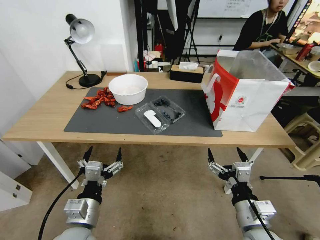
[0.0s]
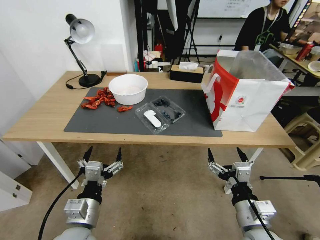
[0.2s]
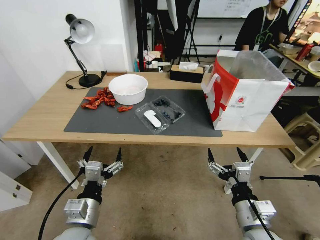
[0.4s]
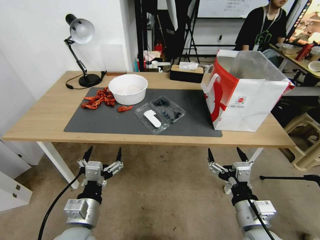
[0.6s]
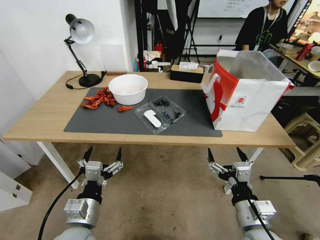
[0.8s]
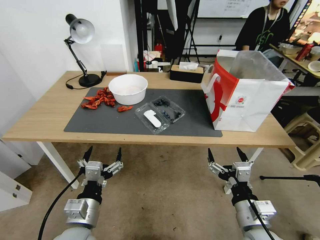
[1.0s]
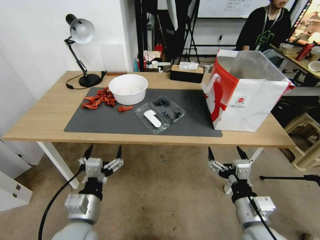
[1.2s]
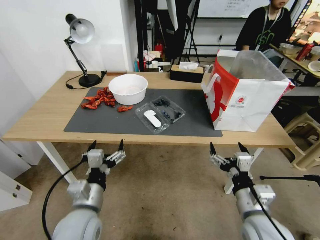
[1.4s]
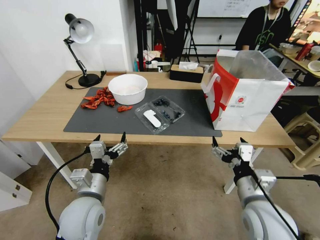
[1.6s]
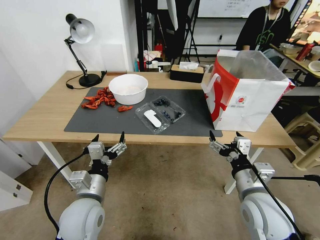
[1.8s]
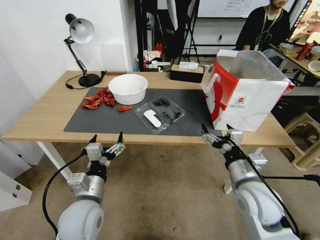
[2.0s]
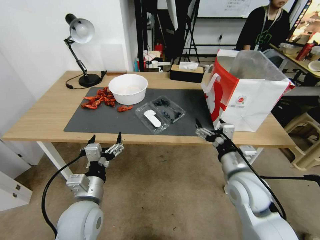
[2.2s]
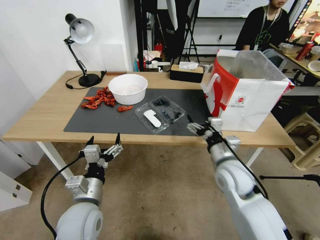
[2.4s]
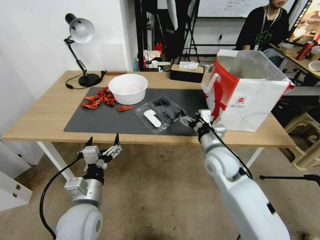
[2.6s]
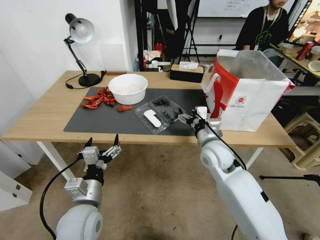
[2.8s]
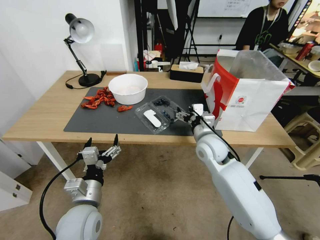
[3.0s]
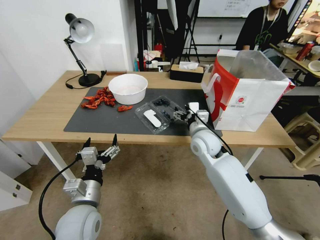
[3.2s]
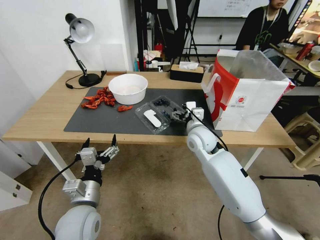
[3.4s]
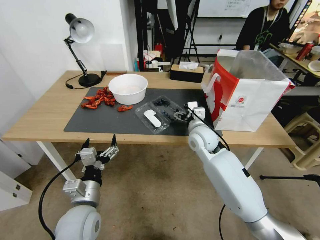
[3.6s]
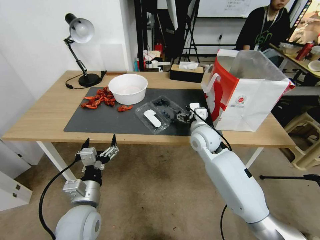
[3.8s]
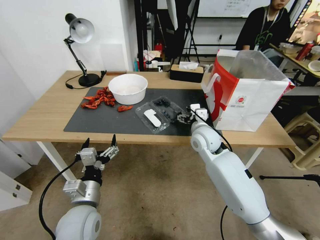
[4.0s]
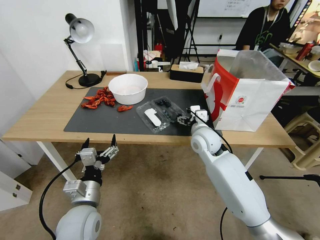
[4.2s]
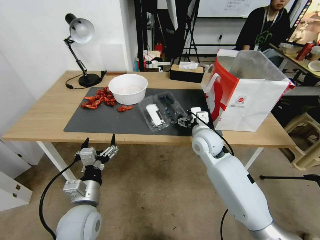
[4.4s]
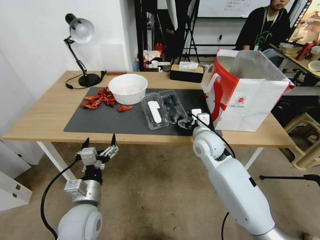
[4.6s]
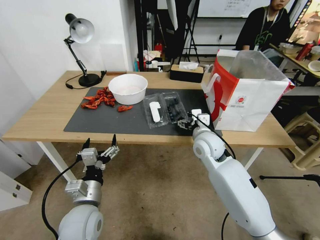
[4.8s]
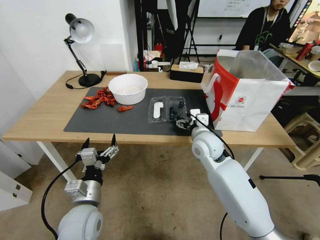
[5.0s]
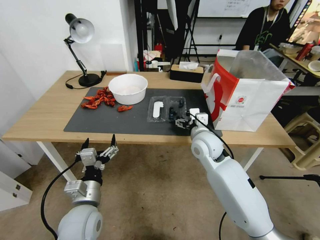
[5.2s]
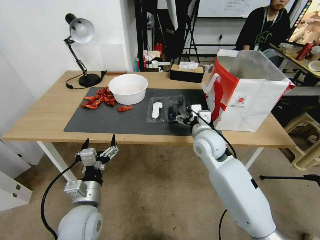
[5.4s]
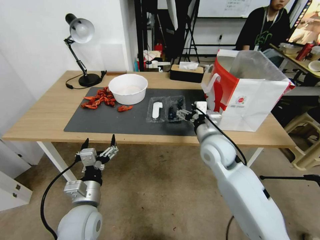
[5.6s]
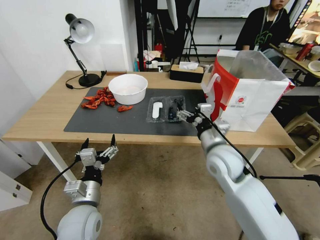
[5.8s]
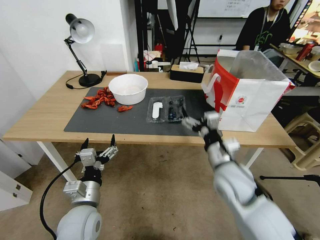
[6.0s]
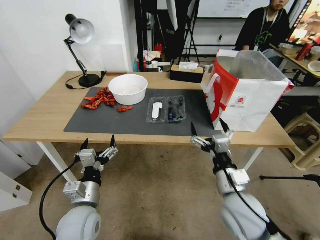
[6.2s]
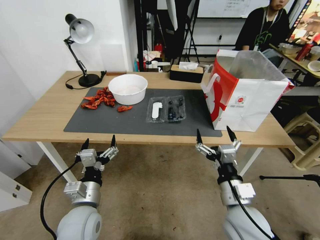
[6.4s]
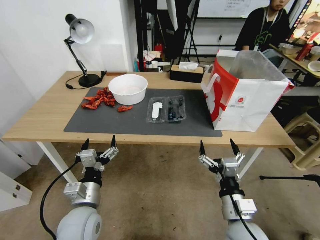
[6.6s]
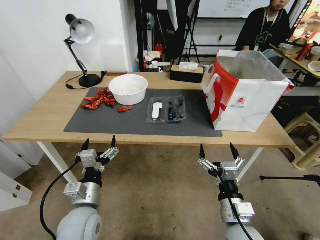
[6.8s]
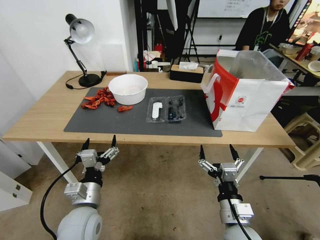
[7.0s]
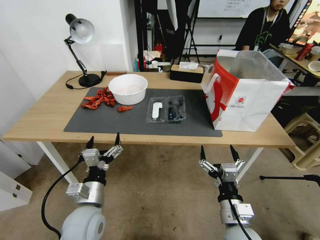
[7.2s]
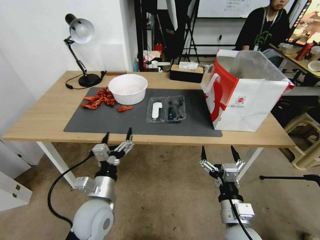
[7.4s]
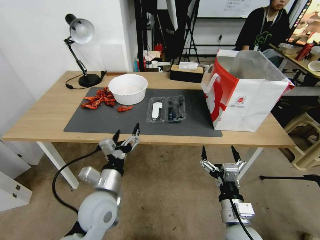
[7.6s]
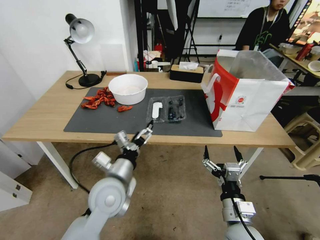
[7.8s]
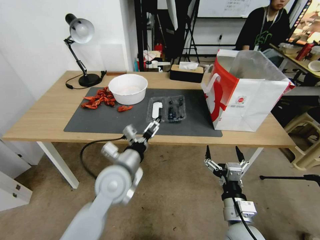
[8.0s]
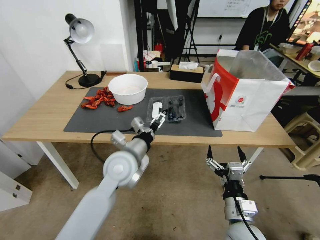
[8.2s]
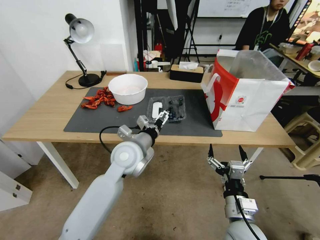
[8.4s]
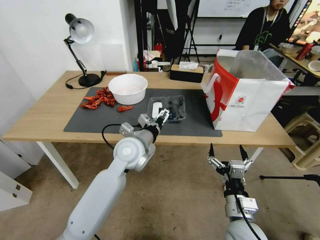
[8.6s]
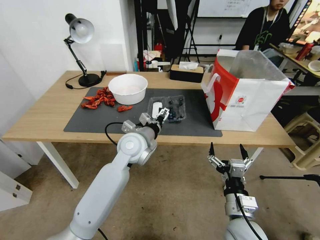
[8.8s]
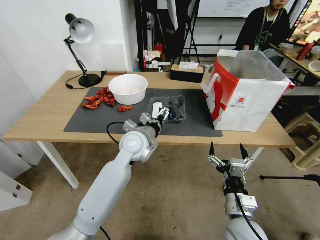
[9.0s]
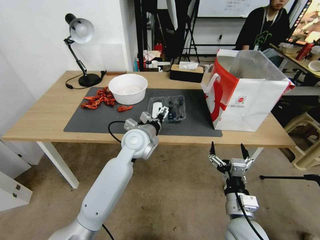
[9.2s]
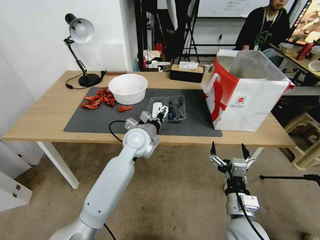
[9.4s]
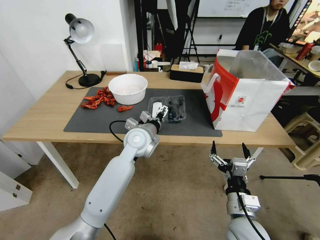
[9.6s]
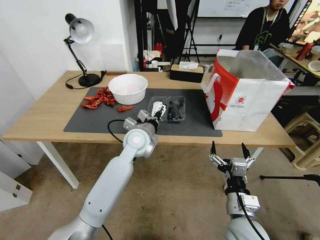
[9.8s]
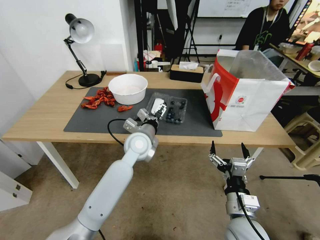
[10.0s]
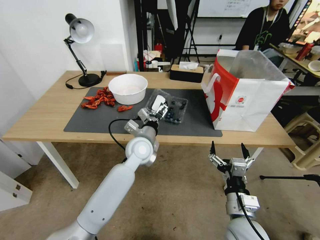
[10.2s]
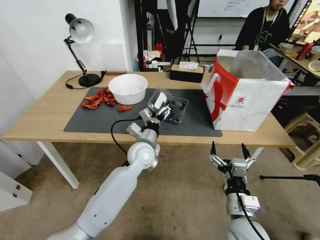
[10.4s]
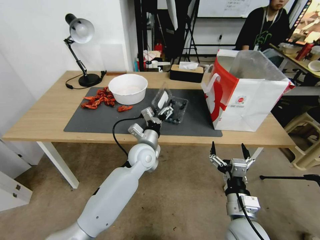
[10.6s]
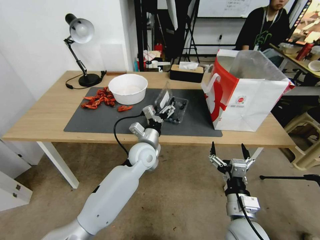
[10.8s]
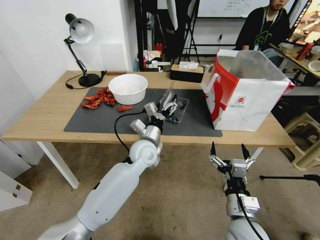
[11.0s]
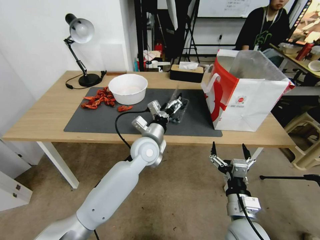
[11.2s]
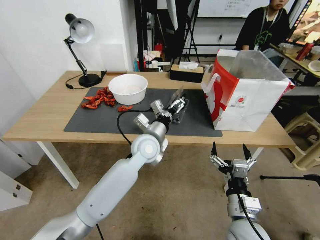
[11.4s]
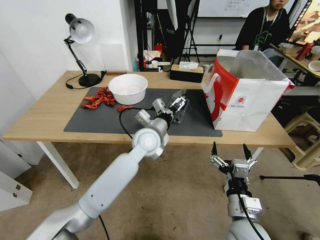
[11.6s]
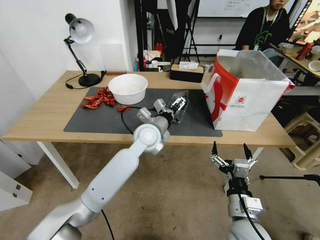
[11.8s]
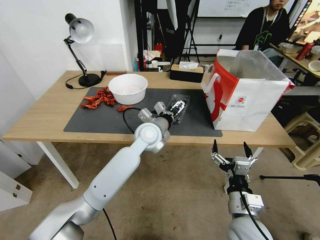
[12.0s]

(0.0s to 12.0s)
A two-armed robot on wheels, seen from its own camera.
Task of the whole recording: Close the takeout container lid, then place the container into the takeout bag.
1.6s - 3.0s: The right gripper is displaced forward by roughly 20 cm.
3.0s - 4.4s: The grippers stay close to where they were, moving slightly.
4.4s - 6.0s: The right gripper shifts roughly 15 cm backward.
6.0s - 7.6s: The right gripper goes approximately 15 cm backward and downward. Meanwhile the left gripper ends up roughly 5 cm from where it was.
7.6s - 9.0s: The left gripper travels forward and to the right by roughly 20 cm.
9.0s - 10.4s: The left gripper heads downward, covering roughly 5 cm.
10.4s - 12.0s: The left gripper shifts about 5 cm upward.

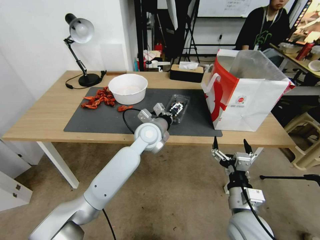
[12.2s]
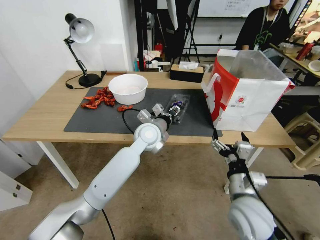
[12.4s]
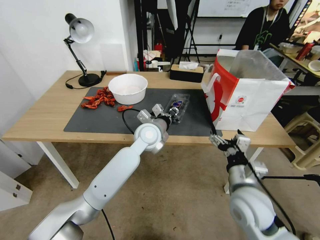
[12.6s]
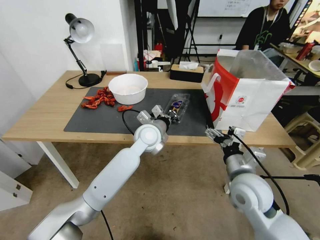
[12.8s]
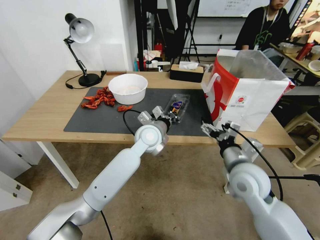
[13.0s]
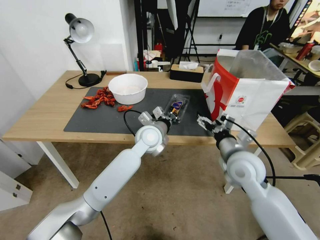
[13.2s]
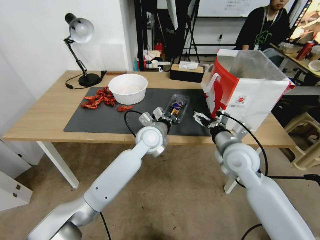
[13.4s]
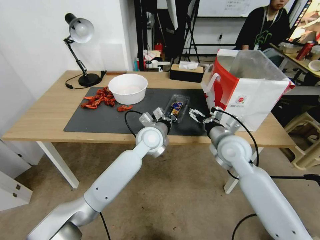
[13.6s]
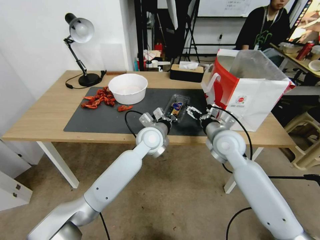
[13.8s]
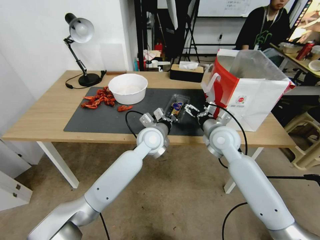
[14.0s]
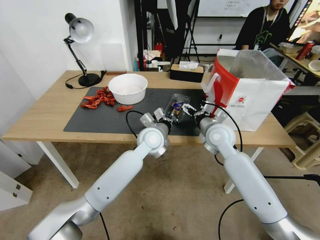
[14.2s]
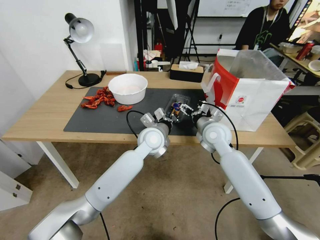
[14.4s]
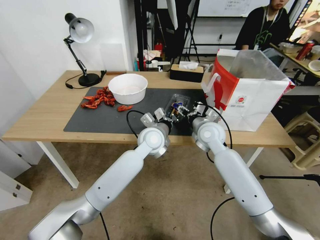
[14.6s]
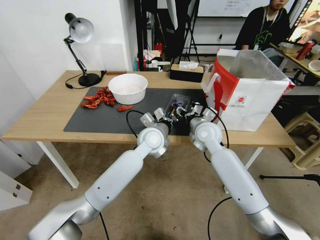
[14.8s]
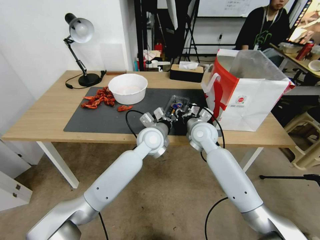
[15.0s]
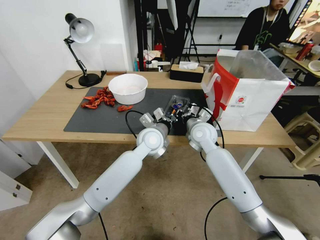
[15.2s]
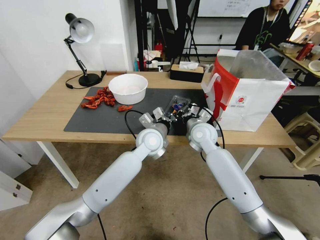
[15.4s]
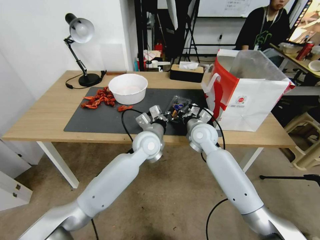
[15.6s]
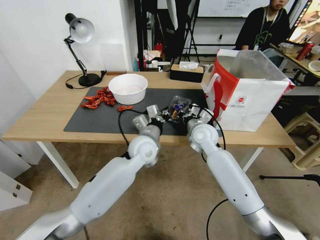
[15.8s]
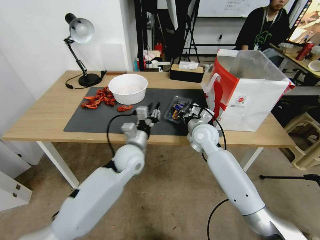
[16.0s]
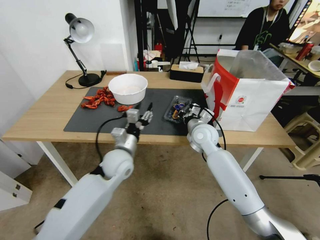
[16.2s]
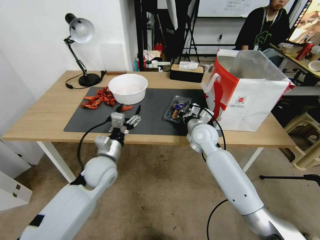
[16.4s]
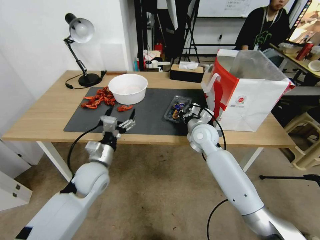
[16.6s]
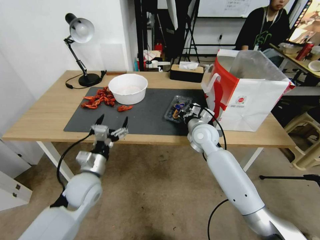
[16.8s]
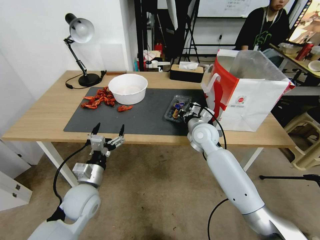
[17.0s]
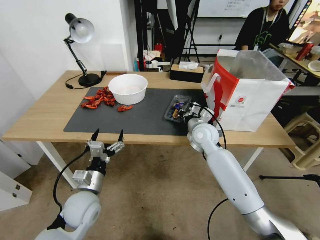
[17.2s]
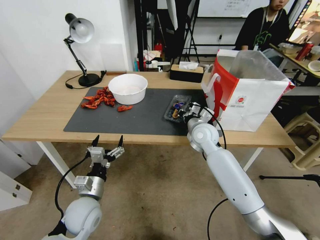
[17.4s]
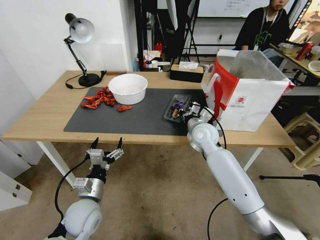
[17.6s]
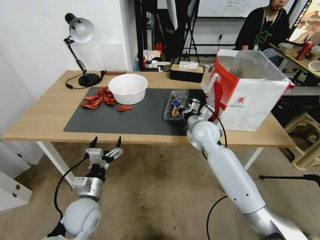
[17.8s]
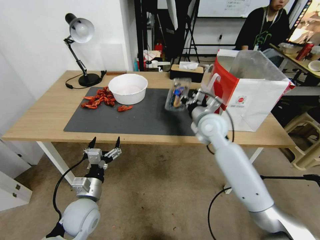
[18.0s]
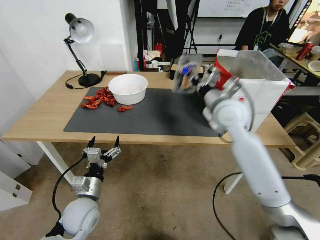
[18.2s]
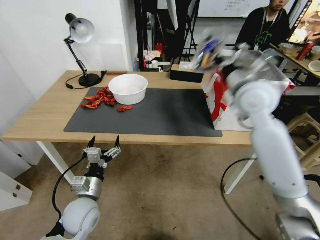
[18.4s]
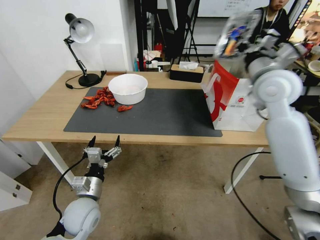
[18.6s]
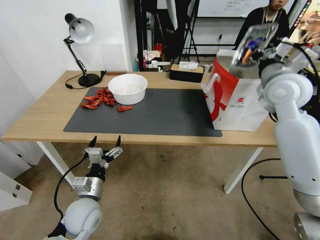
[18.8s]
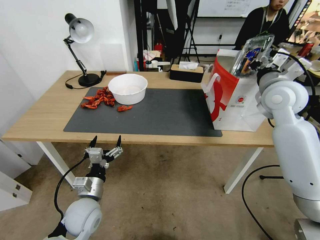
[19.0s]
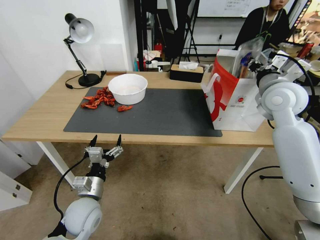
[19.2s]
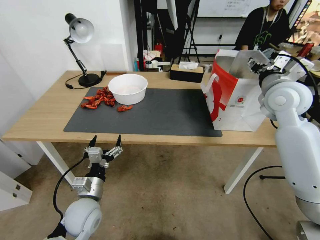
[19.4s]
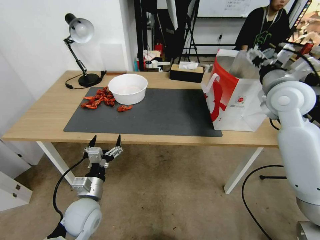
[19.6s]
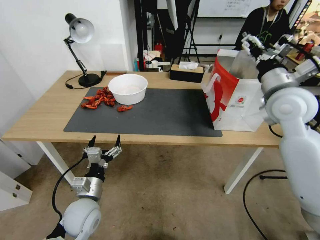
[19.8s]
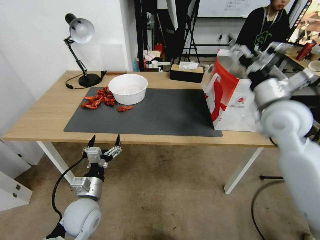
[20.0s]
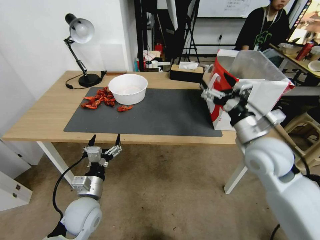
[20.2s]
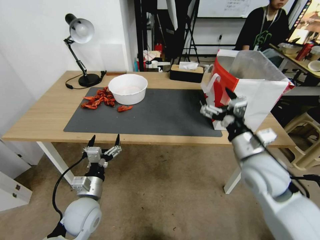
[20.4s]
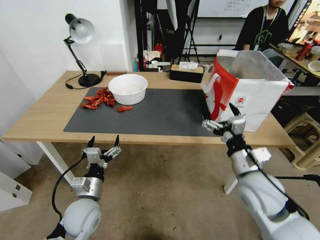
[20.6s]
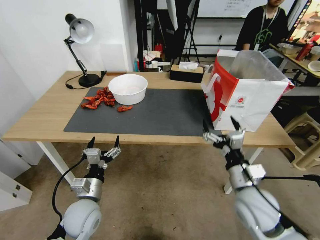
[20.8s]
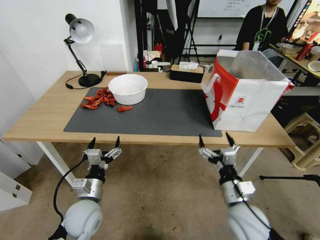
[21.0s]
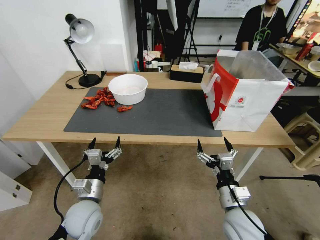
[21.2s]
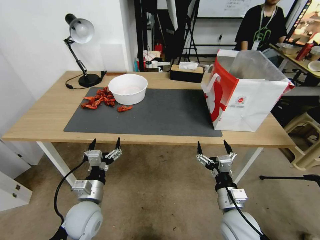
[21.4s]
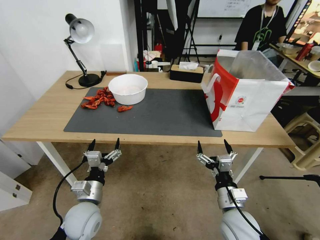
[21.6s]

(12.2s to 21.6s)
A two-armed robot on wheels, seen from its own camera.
Task of the whole recording: Close the takeout container lid, then place the container into the takeout bag.
12.2s - 13.8s: The right gripper is displaced forward by approximately 20 cm, while the left gripper closes its fingers.
13.8s - 15.4s: The right gripper shifts approximately 10 cm forward and to the left, and closes up.
15.4s - 17.0s: The left gripper travels to the left and backward by some 25 cm, and opens up.
17.0s - 18.4s: The right gripper is displaced upward by approximately 20 cm.
18.4s - 20.0s: The right gripper goes about 10 cm backward and to the right, and opens its fingers.
20.0s - 21.6s: The right gripper shifts about 30 cm downward and backward.

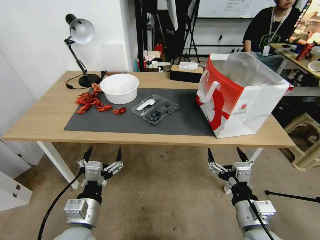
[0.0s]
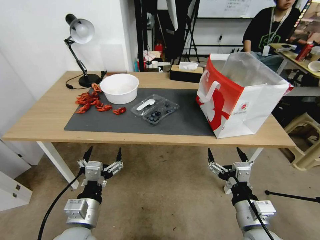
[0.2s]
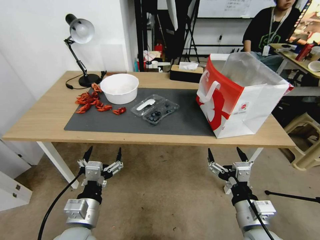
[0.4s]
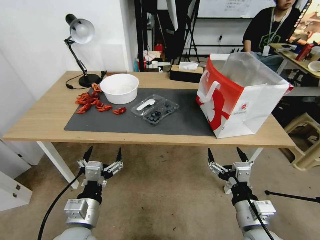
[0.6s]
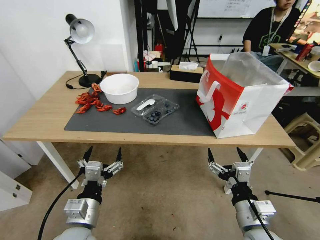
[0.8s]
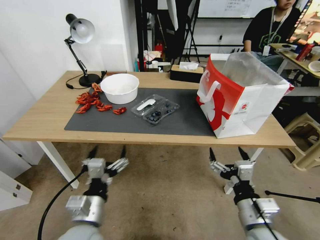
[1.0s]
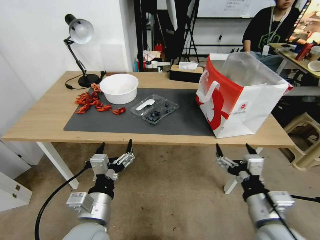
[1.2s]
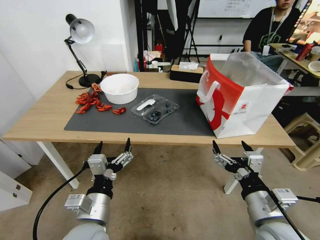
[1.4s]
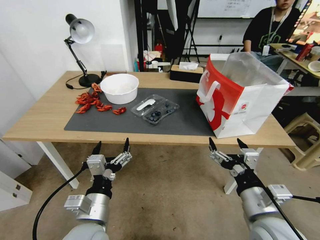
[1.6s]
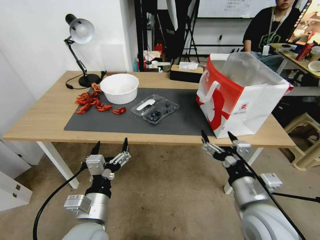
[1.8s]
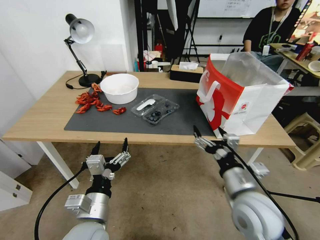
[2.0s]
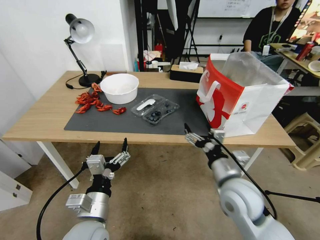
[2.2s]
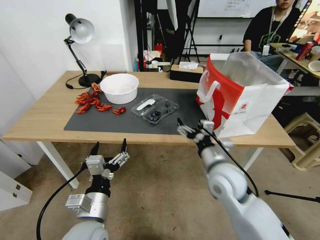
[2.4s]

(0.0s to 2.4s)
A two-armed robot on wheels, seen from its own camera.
Task of the whole recording: Close the takeout container lid, then place the container into the takeout bag.
1.2s - 2.4s: The right gripper moves forward and to the left, approximately 15 cm.
